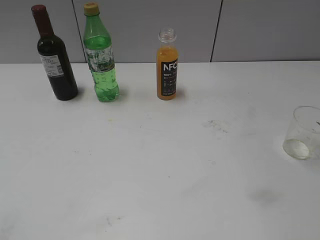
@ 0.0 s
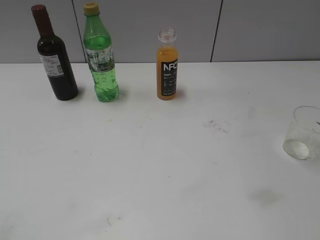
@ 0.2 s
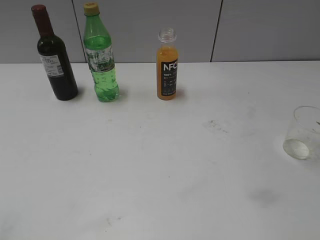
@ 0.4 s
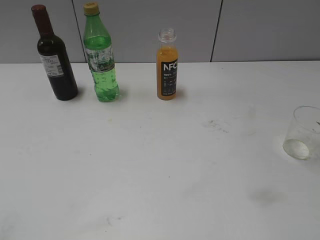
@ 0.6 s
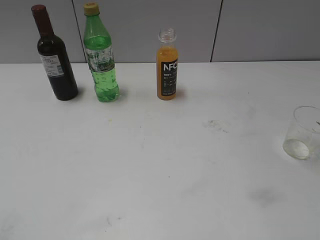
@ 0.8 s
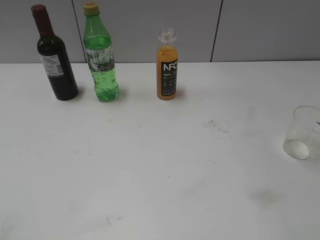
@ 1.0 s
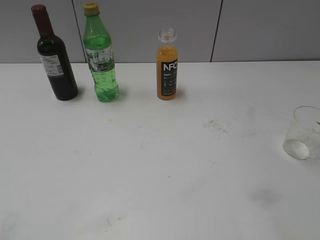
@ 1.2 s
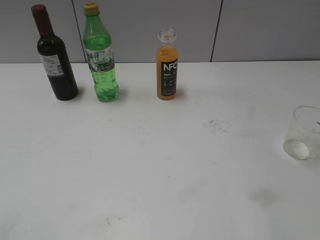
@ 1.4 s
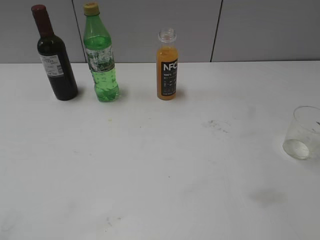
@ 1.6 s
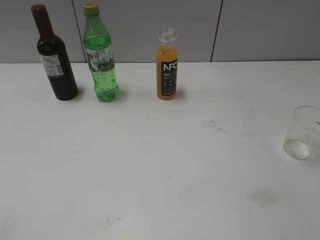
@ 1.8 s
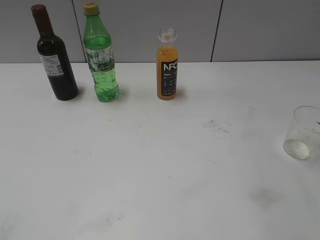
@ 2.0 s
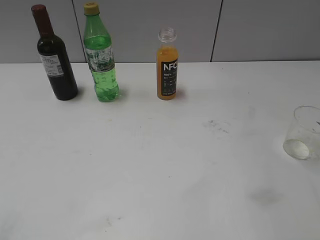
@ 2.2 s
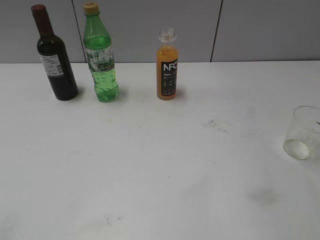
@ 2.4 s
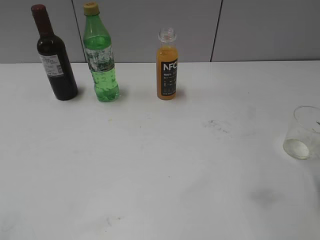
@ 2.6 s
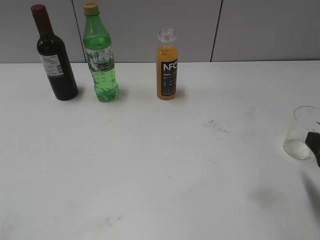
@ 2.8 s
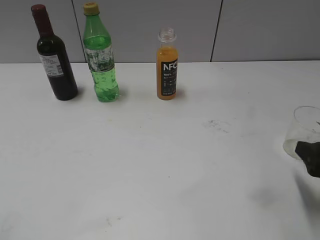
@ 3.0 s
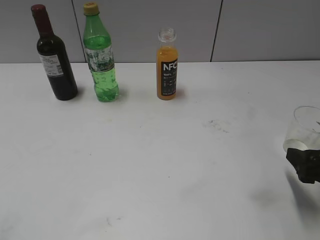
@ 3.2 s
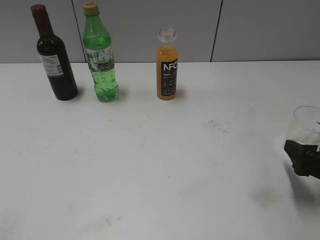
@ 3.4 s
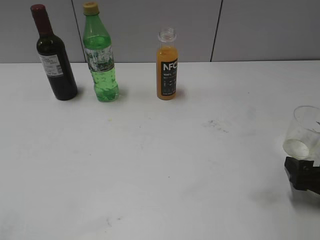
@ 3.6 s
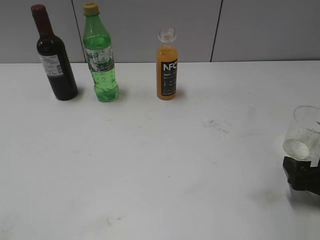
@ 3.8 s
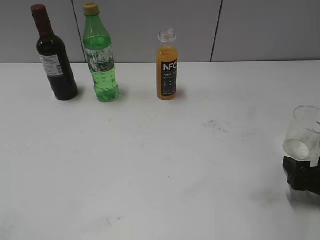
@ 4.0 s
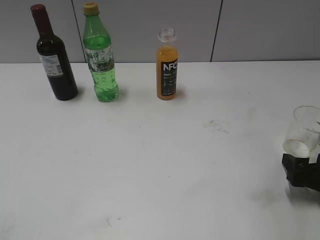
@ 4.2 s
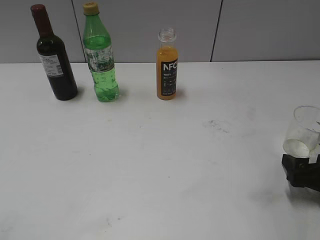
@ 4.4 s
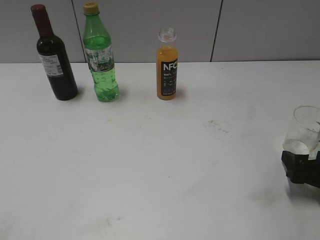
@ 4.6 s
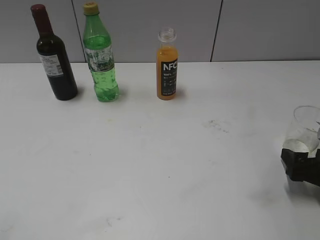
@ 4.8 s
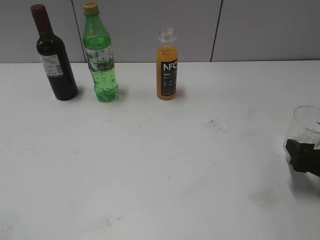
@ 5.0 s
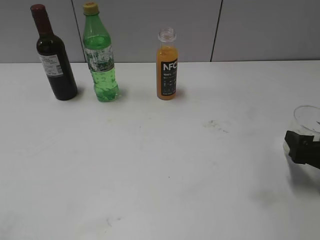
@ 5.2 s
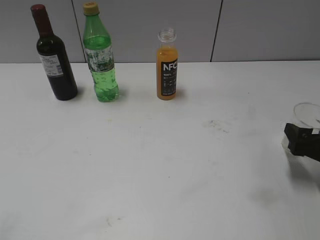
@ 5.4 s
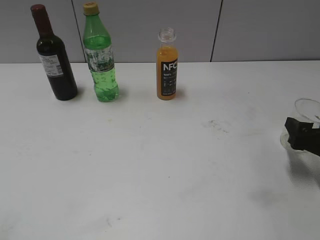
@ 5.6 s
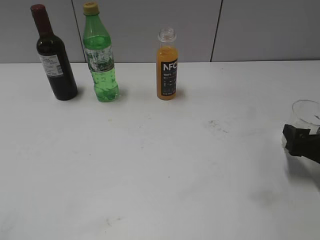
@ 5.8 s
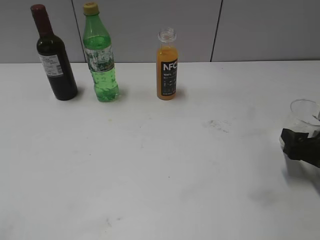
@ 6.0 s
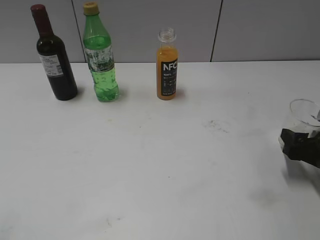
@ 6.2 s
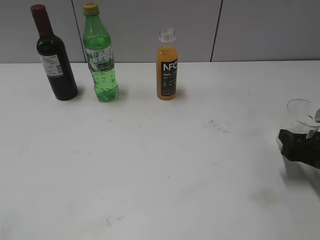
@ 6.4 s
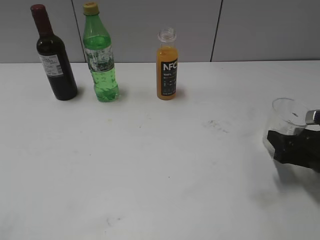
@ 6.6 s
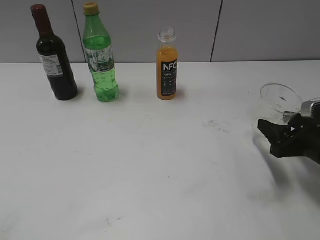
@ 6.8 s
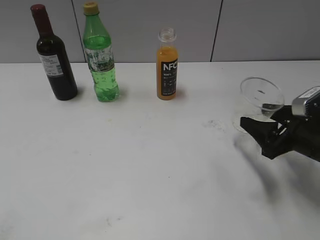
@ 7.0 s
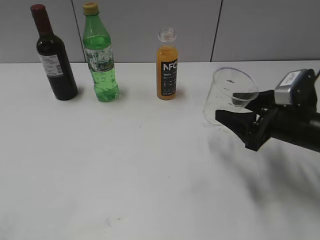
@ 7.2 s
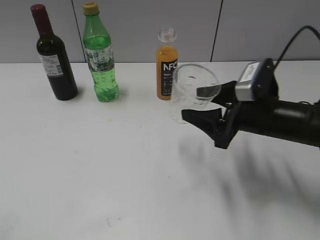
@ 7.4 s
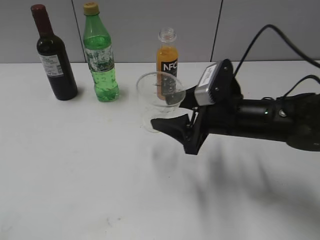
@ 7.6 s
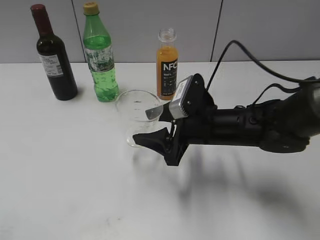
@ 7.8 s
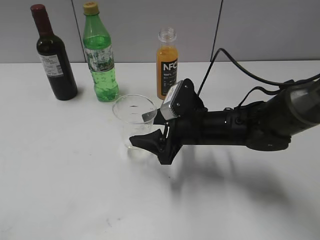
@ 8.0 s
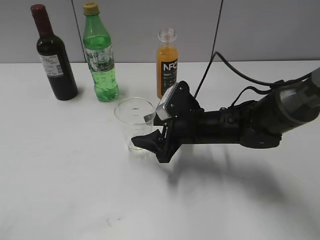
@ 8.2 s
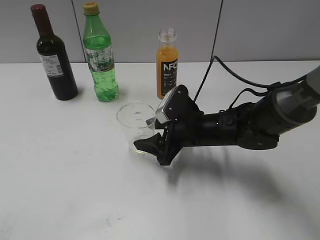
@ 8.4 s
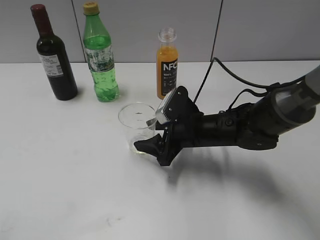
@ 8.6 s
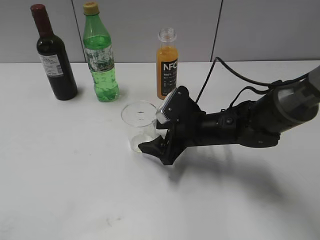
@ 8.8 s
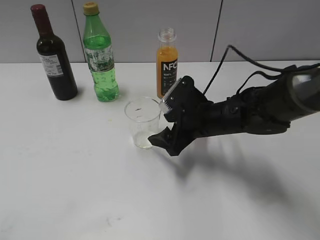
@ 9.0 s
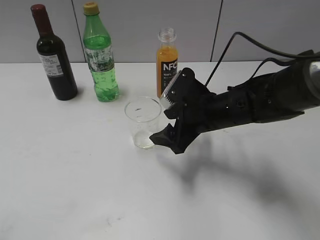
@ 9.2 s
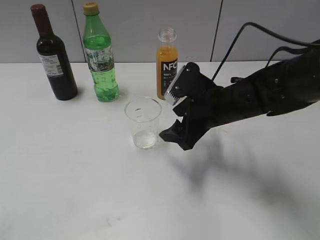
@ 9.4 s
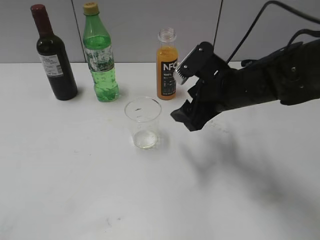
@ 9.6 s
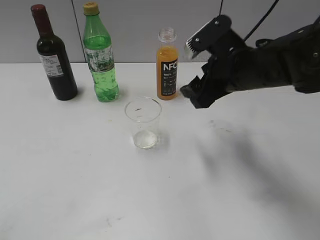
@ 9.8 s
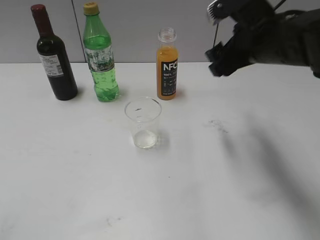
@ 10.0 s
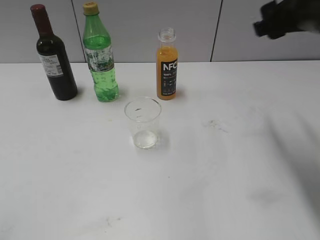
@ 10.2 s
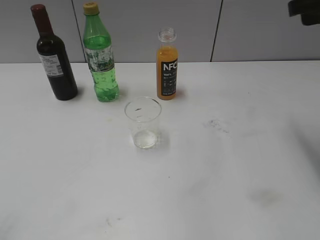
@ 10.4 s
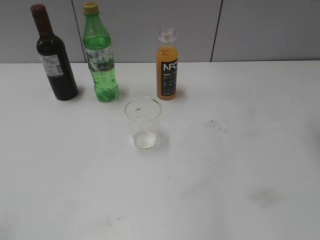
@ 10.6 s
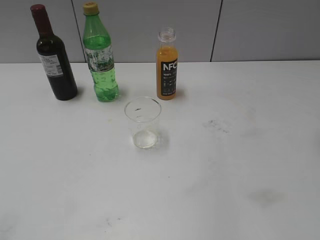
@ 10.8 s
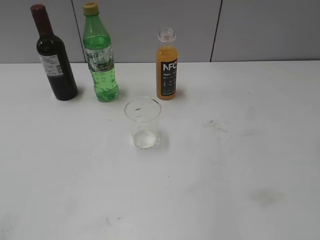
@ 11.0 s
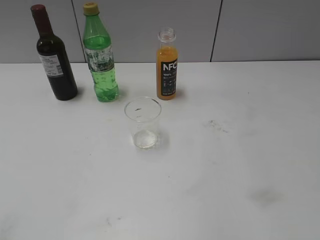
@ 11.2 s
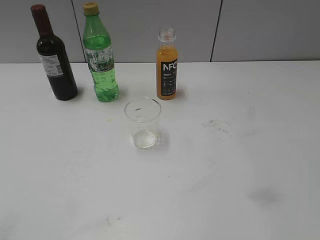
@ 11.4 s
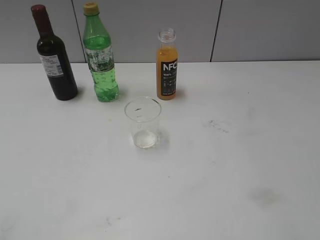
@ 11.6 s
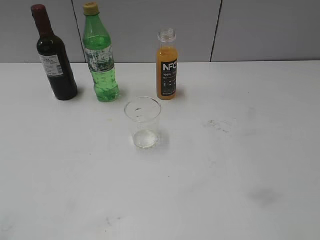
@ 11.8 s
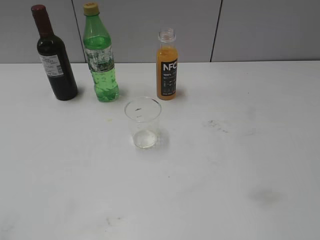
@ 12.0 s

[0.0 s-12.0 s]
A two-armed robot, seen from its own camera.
Step, 2.8 to 6.2 s: Grasp the transparent cup with right gripper.
Step, 6.6 to 9.2 s: Place the transparent cup on the table with right gripper.
1.6 to 3.0 s: The right gripper goes about 20 cm downward, and closes and opens again.
3.0 to 4.4 s: The right gripper moves downward, some 5 cm.
4.4 to 6.0 s: The right gripper closes its fingers.
6.0 to 7.6 s: The right gripper travels to the left by approximately 20 cm, and closes its fingers.
7.6 to 9.0 s: The right gripper travels downward by some 5 cm, and opens.
9.0 to 10.4 s: The right gripper goes some 25 cm upward and to the right.
10.4 to 12.0 s: The right gripper is displaced backward by about 30 cm.

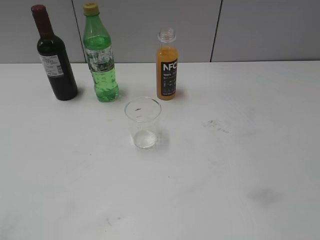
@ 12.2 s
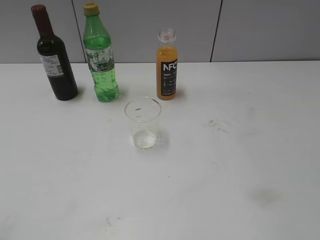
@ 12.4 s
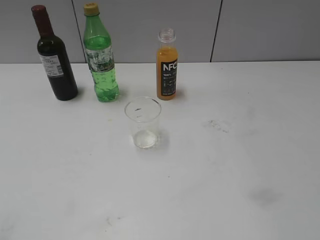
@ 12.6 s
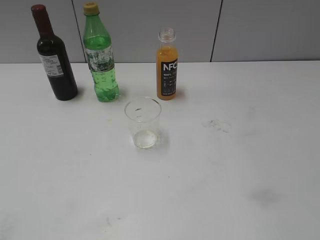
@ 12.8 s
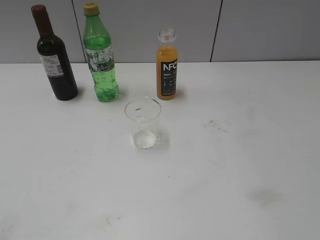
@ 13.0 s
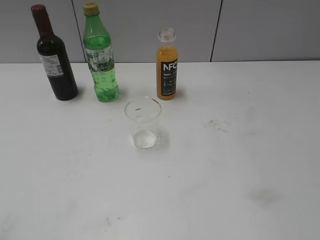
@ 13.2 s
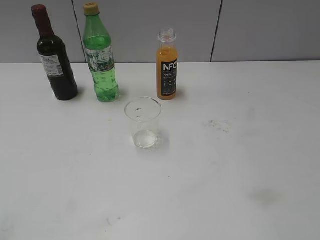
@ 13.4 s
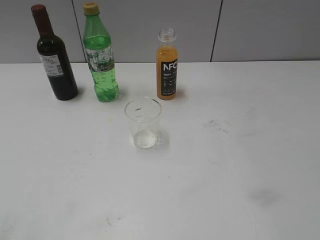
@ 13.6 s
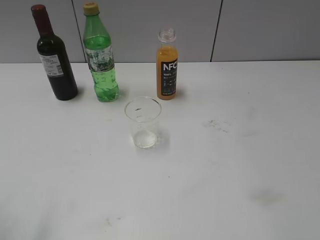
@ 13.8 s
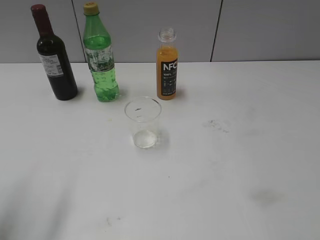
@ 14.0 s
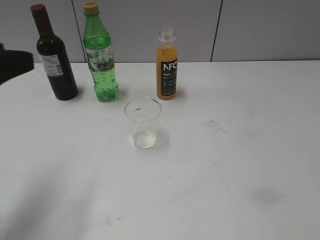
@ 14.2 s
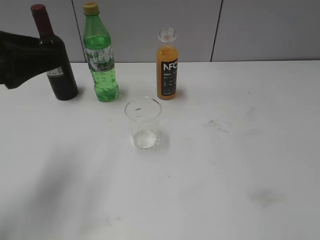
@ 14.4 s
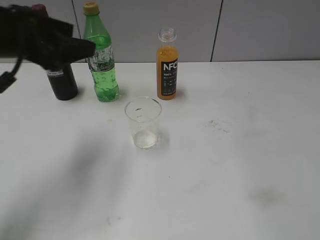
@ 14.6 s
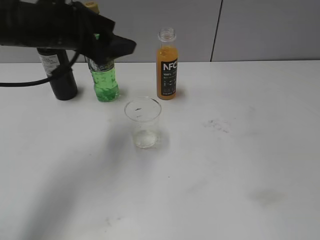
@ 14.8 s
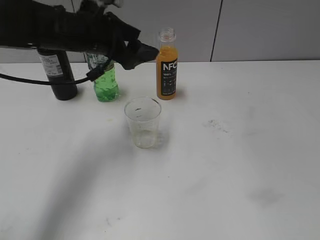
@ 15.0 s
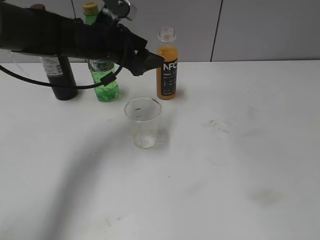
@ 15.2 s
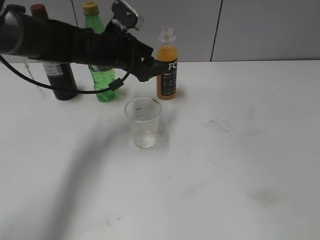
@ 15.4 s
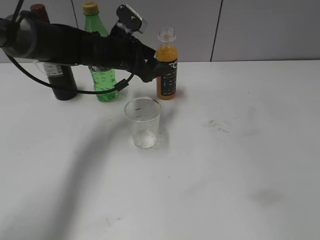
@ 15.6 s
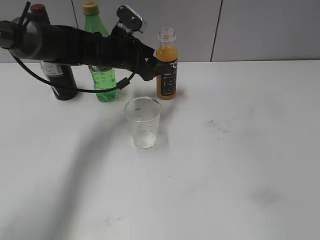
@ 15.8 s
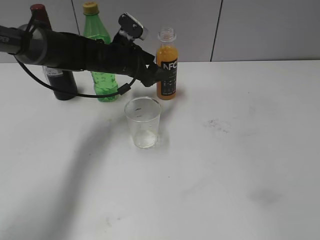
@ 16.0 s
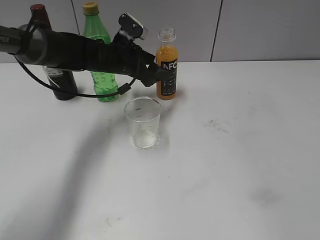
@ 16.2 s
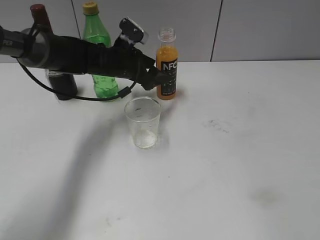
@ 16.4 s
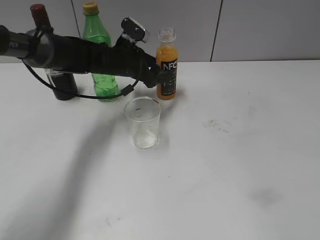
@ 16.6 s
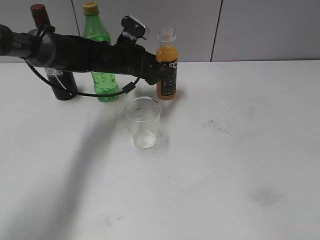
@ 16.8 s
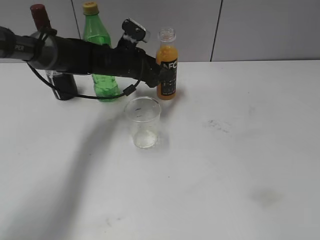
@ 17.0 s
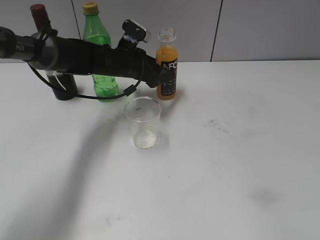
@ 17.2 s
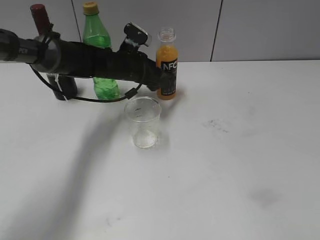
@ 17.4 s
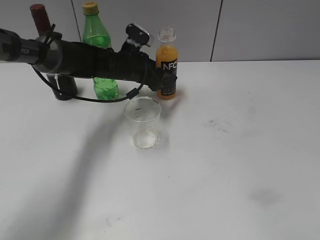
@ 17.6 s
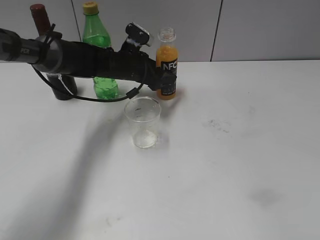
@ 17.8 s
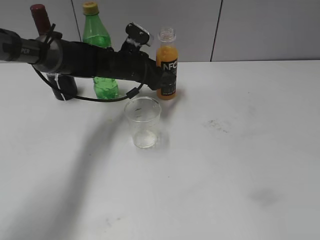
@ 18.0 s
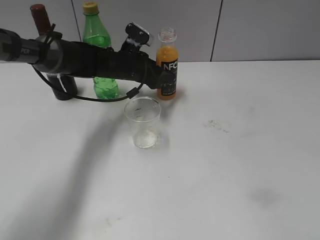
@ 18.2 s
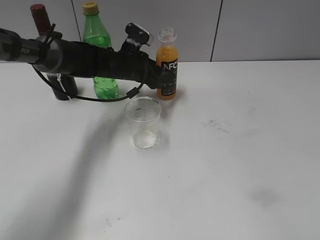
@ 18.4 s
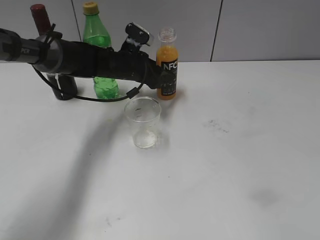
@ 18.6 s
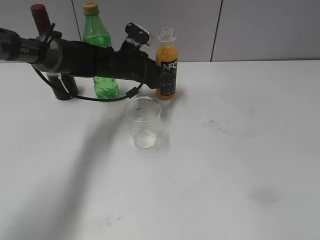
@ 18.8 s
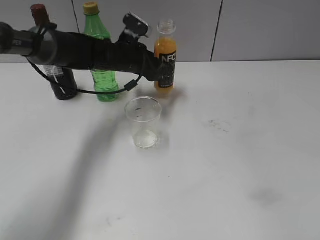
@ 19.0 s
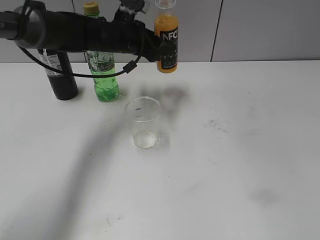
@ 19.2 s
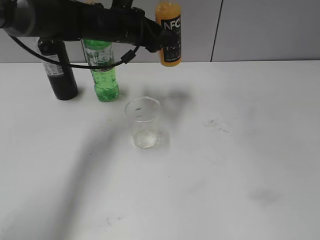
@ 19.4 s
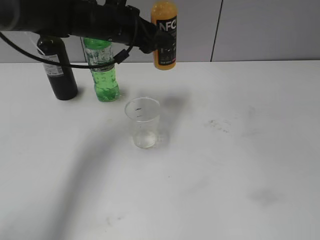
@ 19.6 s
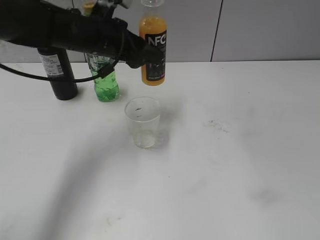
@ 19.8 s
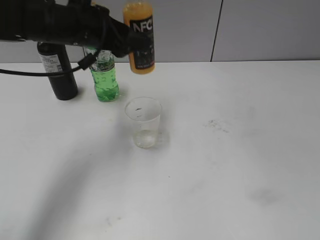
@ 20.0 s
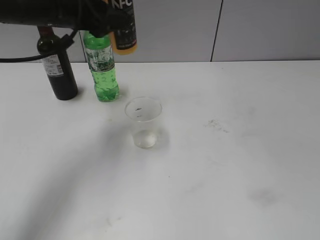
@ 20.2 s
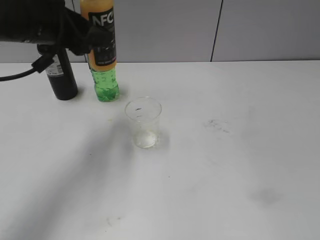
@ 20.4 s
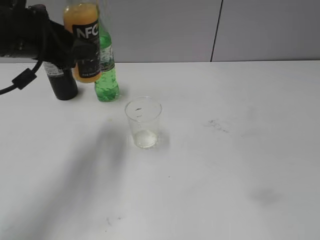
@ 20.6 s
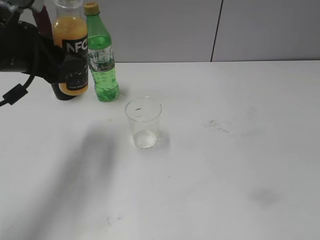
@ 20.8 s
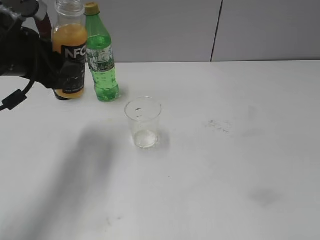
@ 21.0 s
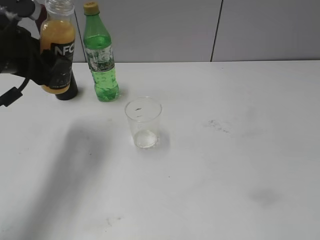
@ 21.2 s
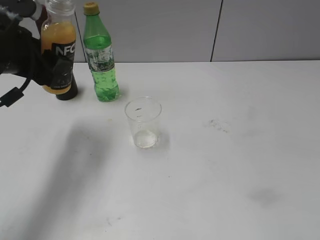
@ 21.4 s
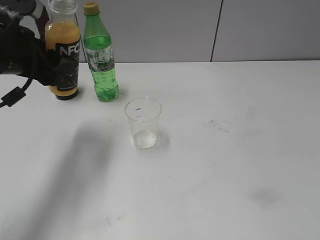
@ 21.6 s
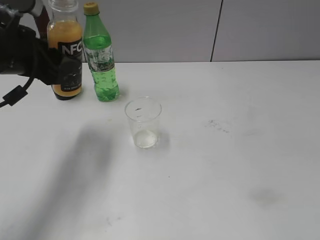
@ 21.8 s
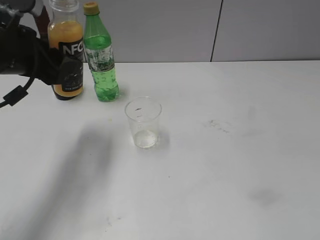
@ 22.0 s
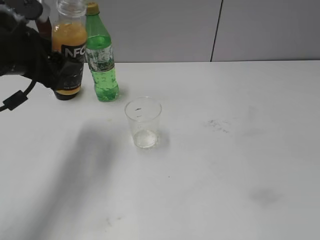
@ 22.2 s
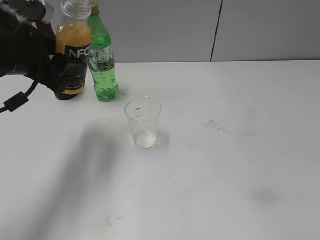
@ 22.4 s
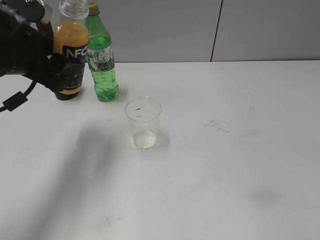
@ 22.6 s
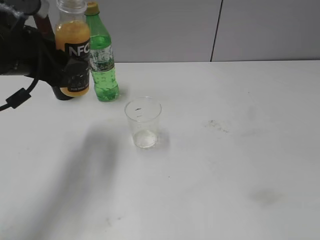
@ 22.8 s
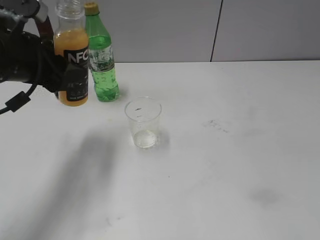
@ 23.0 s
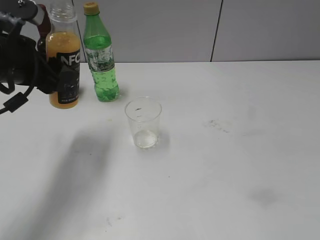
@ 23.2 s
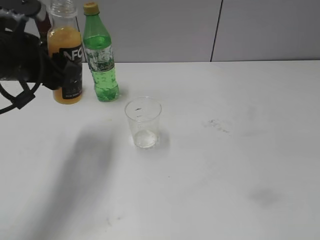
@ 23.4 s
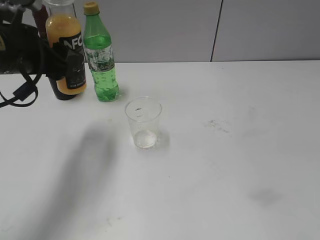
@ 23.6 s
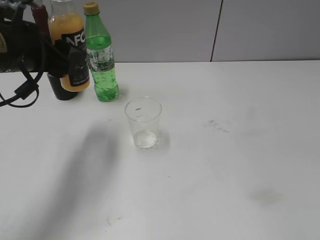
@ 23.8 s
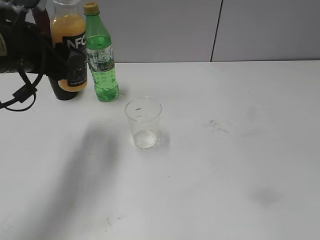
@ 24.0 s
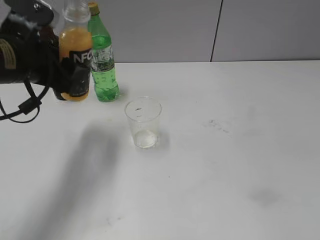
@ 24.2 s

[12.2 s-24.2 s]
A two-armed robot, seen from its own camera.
Step, 12.2 to 18.4 s: Grasp the bottle with orange juice with left gripper.
13.8 to 15.2 s: The left gripper shifts approximately 35 cm forward and to the right.
15.2 to 16.6 s: The left gripper moves downward and forward, about 10 cm.
16.6 to 18.2 s: The left gripper closes its fingers.
18.2 to 19.8 s: The left gripper shifts approximately 10 cm upward and backward.
19.8 to 21.2 s: The left gripper travels to the left and backward by approximately 15 cm.
21.2 to 22.6 s: The grippers stay close to where they were, moving slightly.
